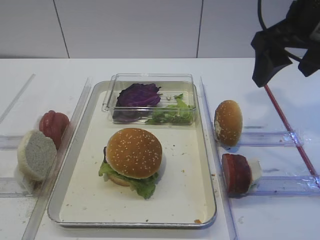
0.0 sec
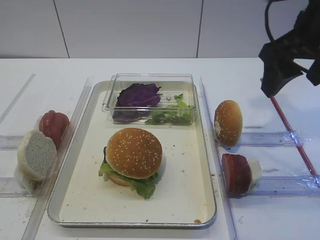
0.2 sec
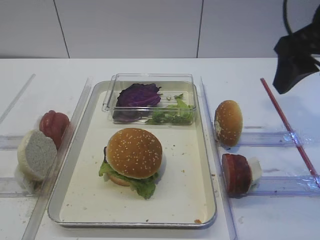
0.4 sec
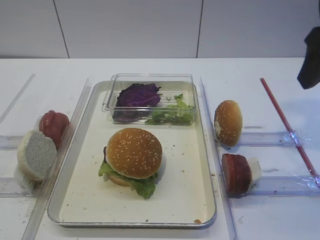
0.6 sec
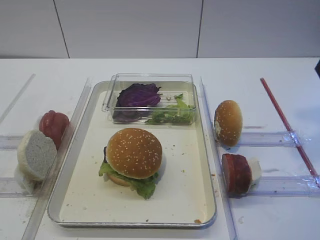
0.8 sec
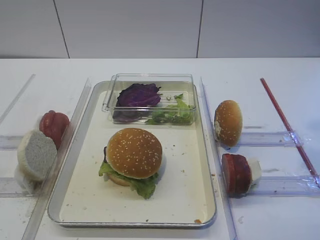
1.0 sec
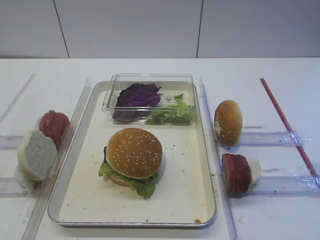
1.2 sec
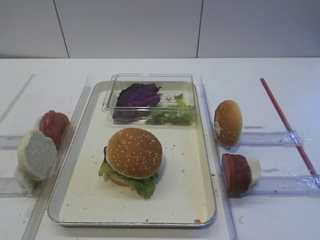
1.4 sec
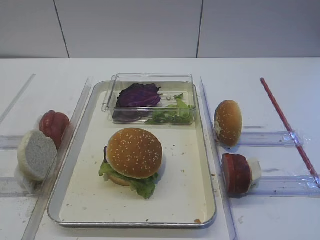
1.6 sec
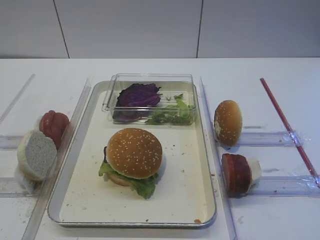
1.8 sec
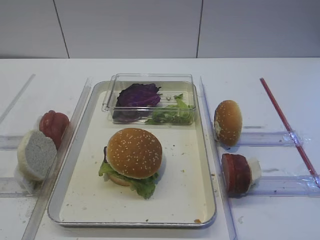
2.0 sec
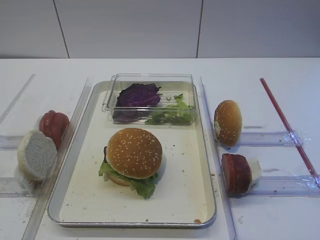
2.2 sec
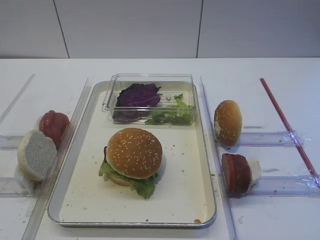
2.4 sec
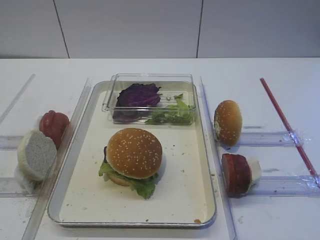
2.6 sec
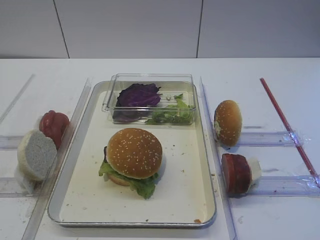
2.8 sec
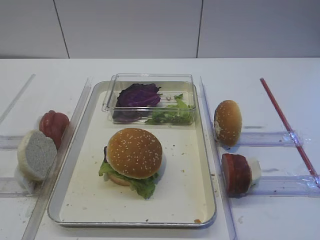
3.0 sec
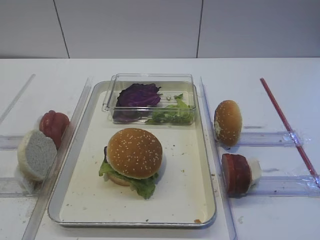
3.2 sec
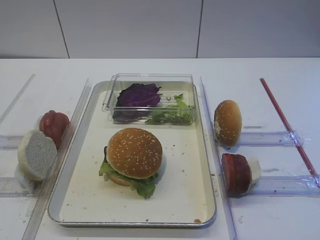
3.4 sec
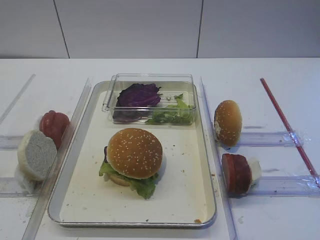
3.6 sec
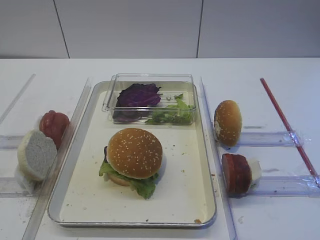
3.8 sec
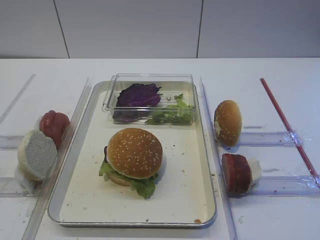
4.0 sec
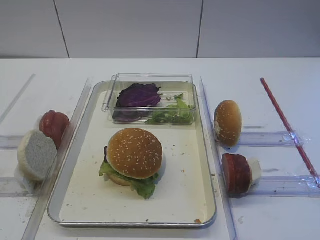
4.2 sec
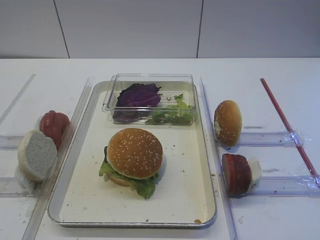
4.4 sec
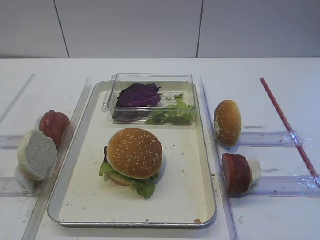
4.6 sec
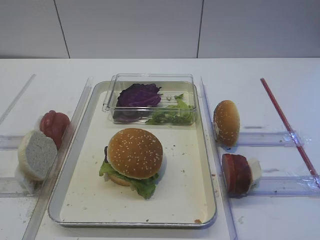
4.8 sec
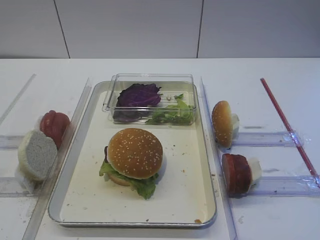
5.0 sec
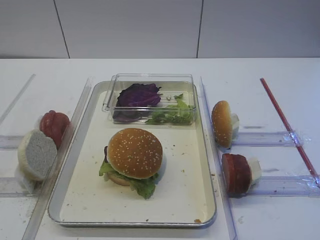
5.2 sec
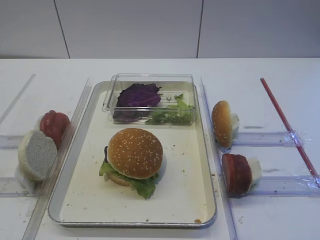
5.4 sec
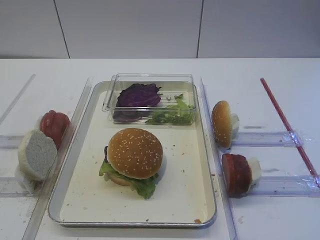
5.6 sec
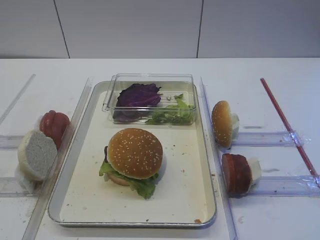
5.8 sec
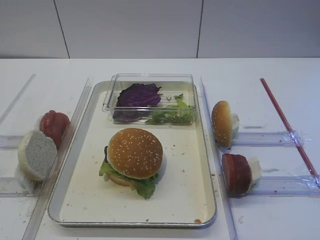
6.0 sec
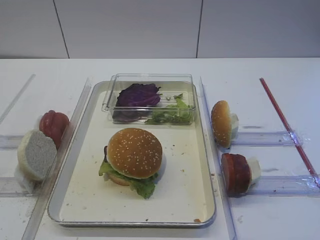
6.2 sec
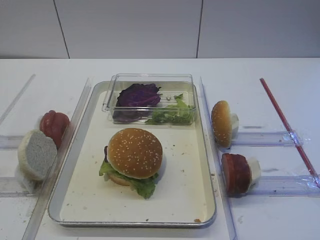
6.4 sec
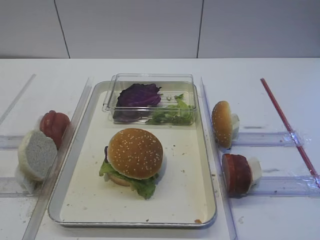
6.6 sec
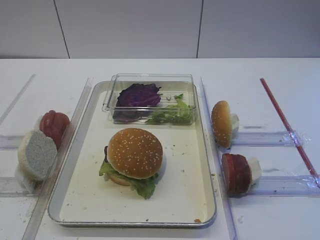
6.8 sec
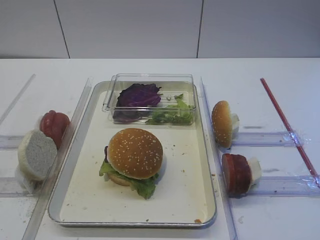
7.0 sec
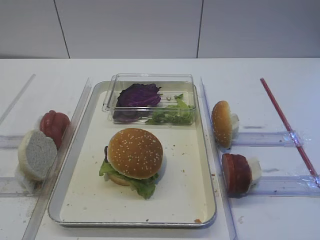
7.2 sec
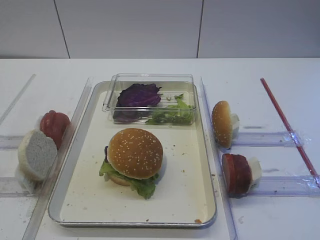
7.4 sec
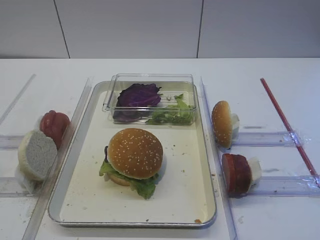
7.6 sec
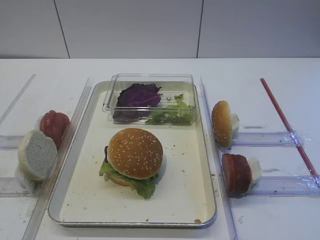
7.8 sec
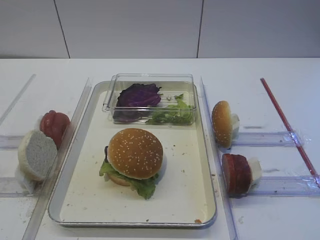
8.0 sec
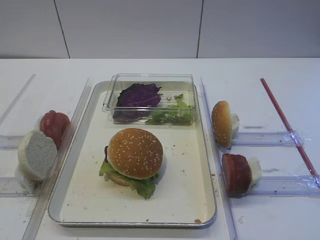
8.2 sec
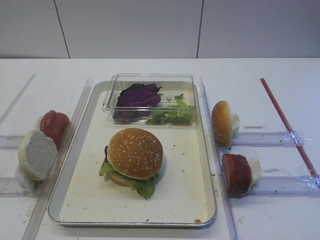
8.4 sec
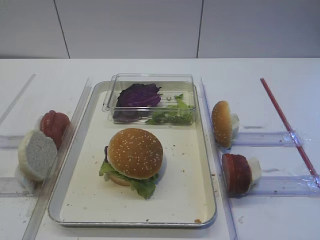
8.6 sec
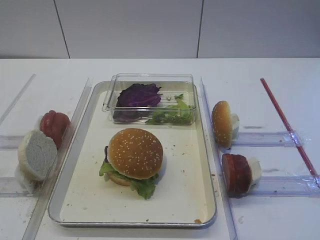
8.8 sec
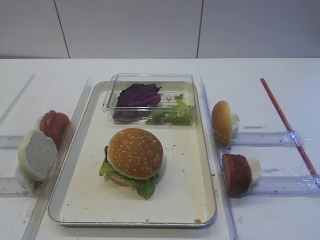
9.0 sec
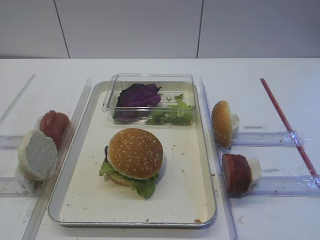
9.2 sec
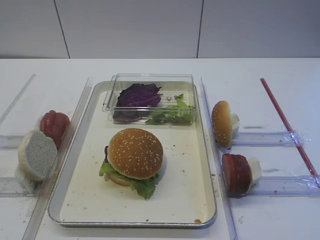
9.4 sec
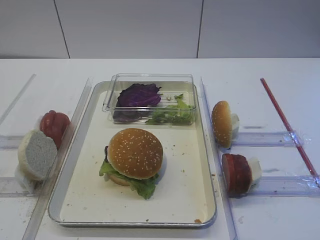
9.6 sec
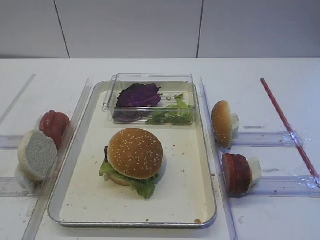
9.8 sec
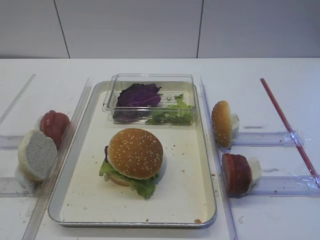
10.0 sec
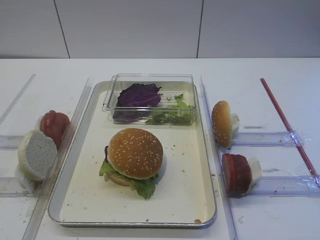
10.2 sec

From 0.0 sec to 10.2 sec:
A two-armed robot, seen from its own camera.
From 0.0 sec to 1.4 sec: The right gripper moves backward, some 20 cm.
From 4.4 sec to 5.8 sec: Both grippers stay put.
From 8.8 sec to 10.2 sec: Neither gripper changes place.

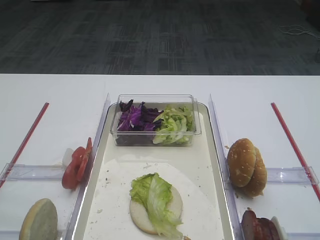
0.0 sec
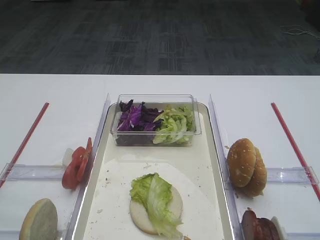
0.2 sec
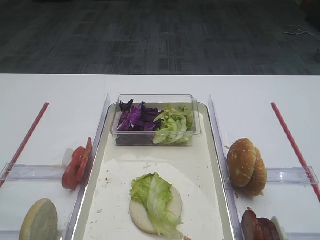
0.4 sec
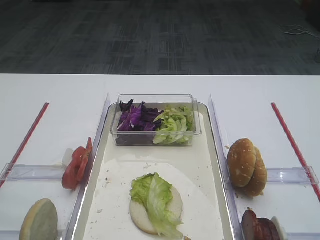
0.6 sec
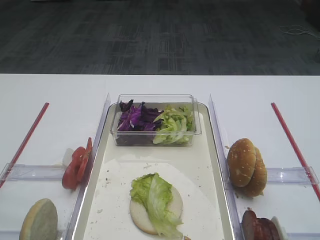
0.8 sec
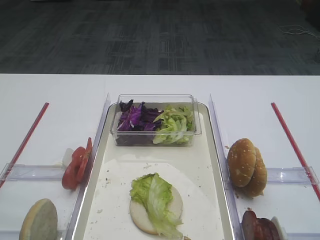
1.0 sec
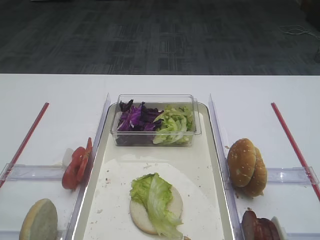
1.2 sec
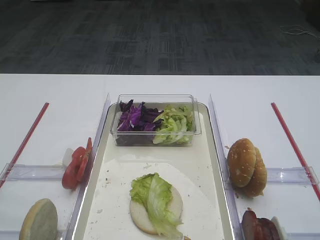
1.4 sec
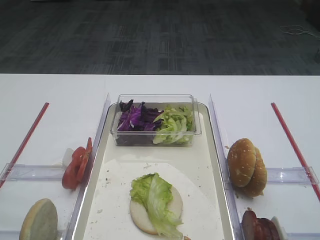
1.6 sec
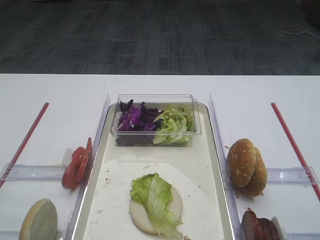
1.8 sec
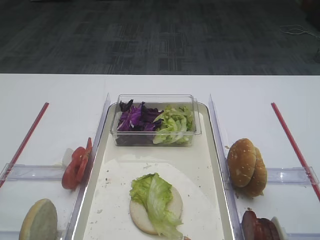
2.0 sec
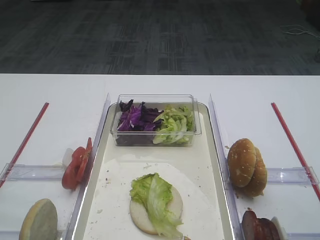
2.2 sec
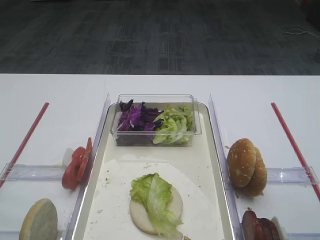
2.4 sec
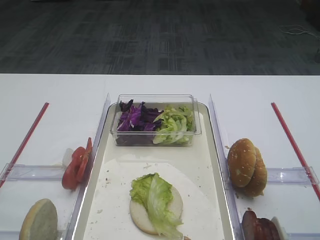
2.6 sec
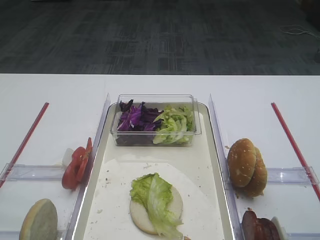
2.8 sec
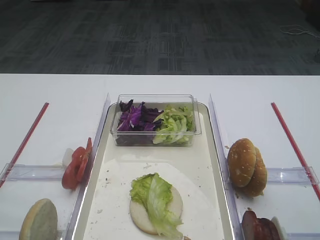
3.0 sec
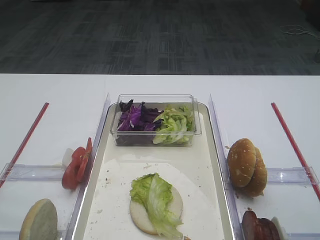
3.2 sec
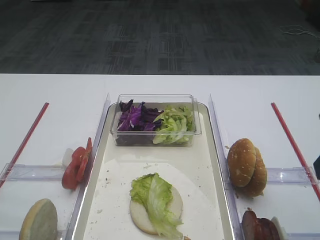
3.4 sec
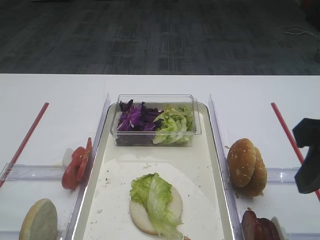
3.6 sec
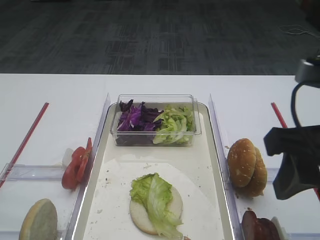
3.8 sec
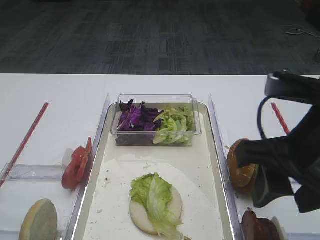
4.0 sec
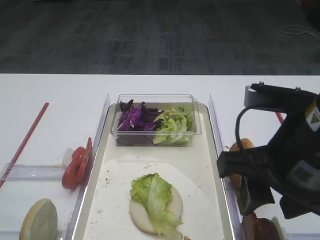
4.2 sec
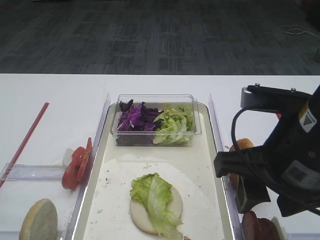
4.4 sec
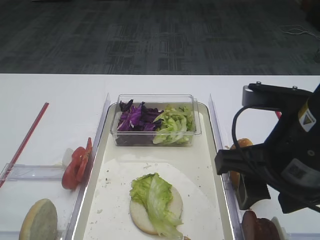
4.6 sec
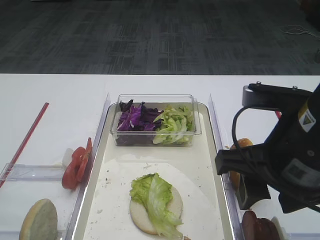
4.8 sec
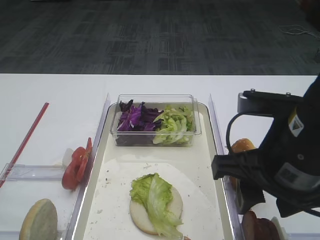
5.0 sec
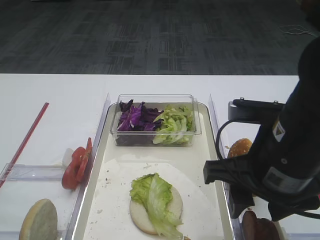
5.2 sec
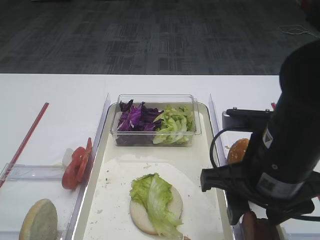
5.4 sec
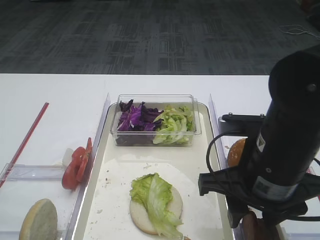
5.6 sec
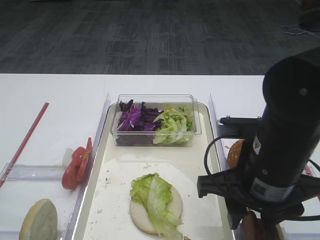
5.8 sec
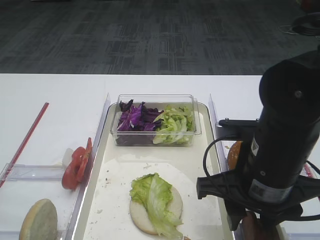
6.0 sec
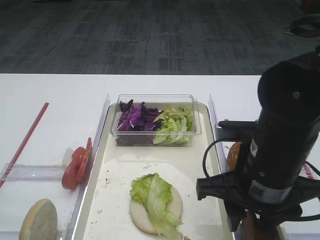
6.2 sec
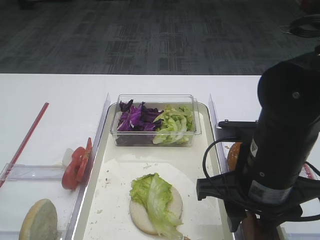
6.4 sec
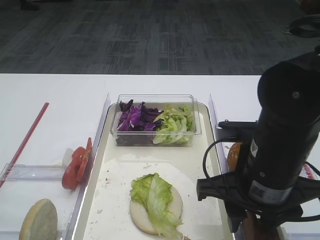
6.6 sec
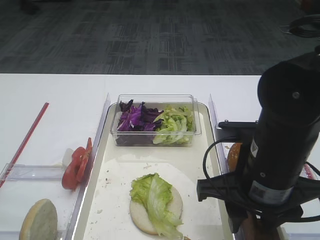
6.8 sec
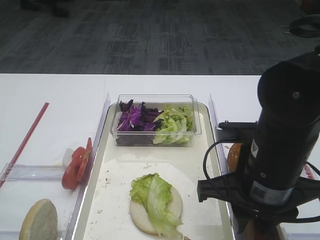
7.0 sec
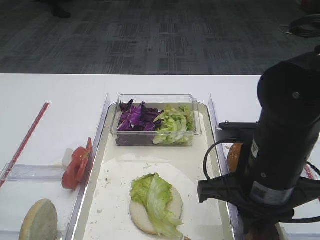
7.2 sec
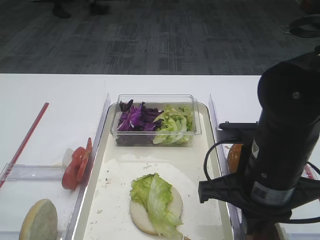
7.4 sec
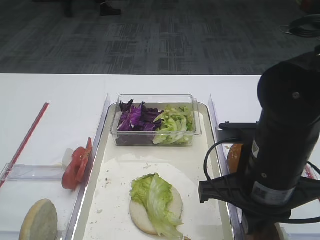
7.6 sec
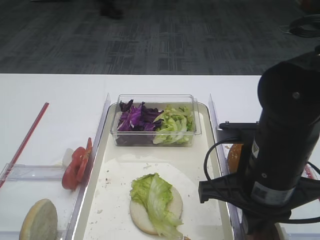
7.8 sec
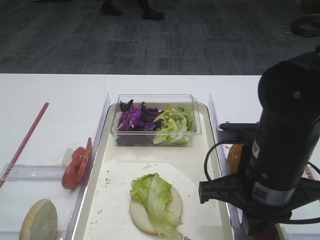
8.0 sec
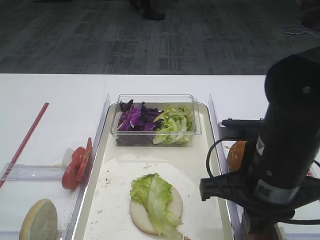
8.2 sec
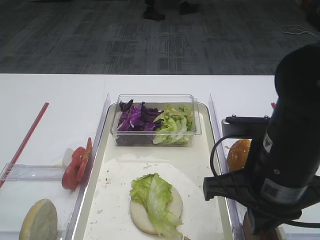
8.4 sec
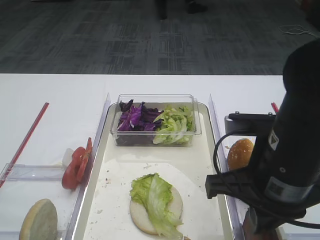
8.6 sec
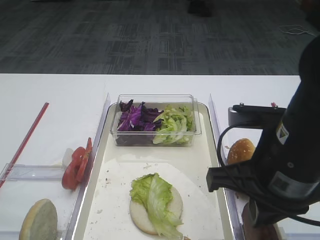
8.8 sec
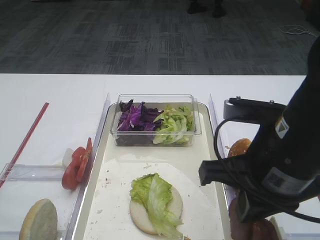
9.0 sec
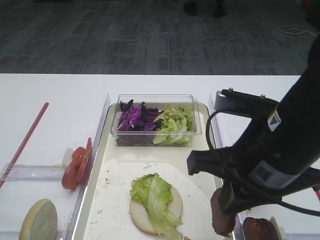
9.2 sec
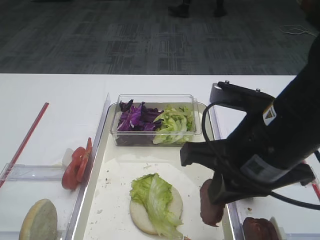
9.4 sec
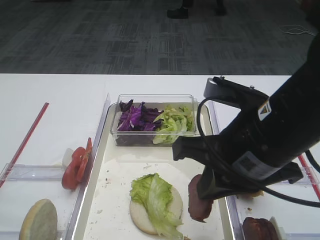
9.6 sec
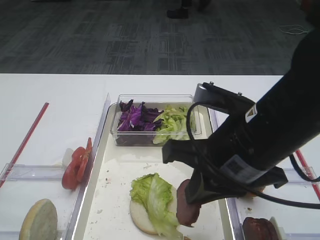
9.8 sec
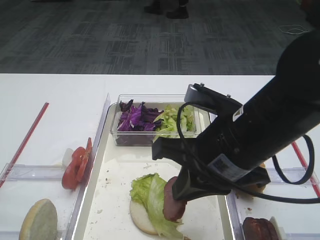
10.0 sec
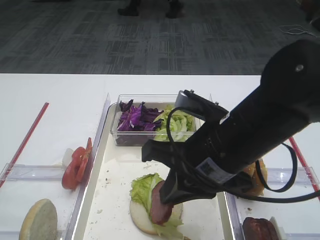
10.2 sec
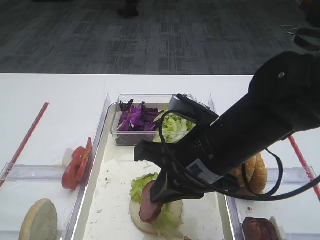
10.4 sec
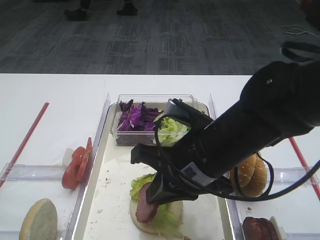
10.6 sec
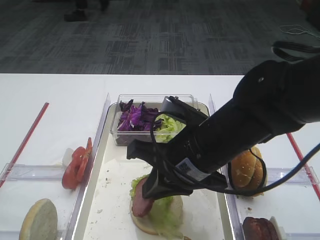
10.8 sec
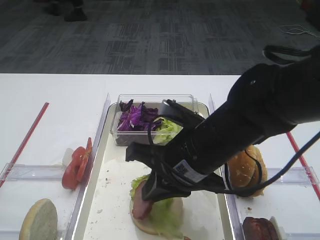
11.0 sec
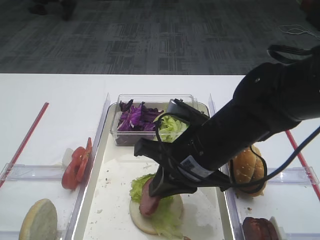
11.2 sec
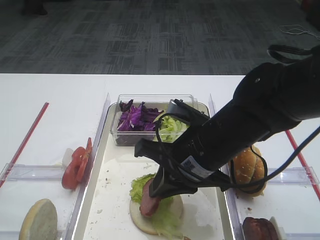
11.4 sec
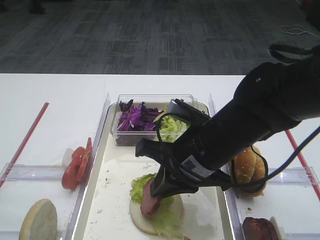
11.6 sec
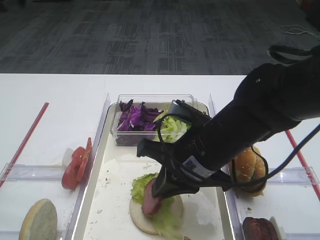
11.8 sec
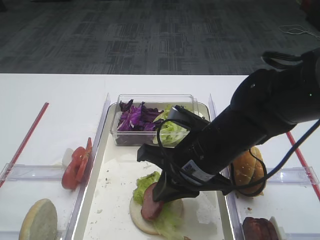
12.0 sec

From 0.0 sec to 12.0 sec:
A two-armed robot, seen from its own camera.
Step, from 0.0 sec to 8.8 sec: Pick up the cutlet with the right gripper.
From 3.0 sec to 4.4 sec: The right gripper shifts about 10 cm to the left and downward.
From 4.4 sec to 6.0 sec: The right gripper heads downward, covering roughly 5 cm.
From 6.0 sec to 7.6 sec: The right gripper closes its fingers.
From 7.6 sec to 9.0 sec: The grippers move only a little.
From 9.0 sec to 10.4 sec: The right gripper is displaced to the left by some 5 cm.
From 10.4 sec to 12.0 sec: The grippers make only small movements.
